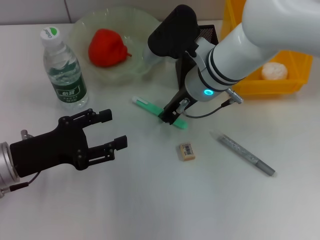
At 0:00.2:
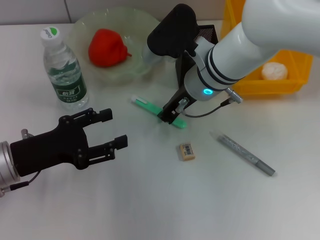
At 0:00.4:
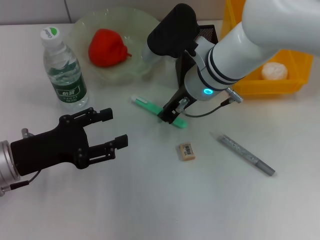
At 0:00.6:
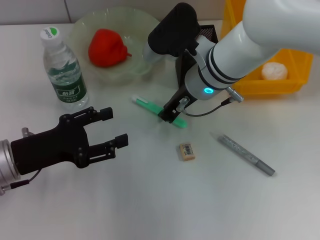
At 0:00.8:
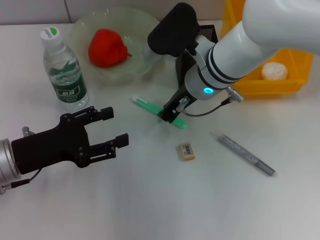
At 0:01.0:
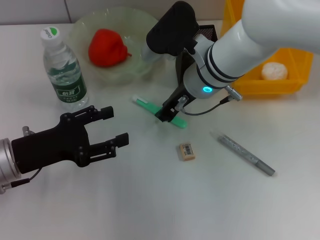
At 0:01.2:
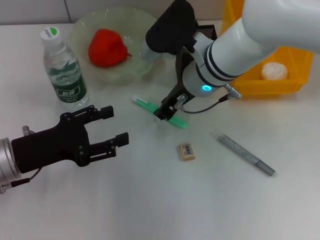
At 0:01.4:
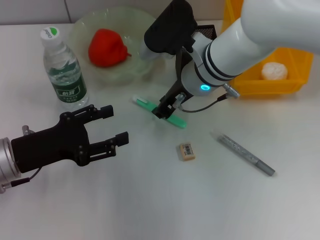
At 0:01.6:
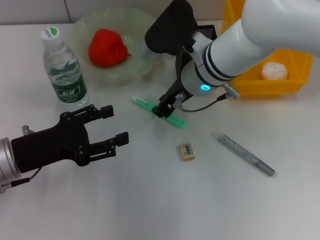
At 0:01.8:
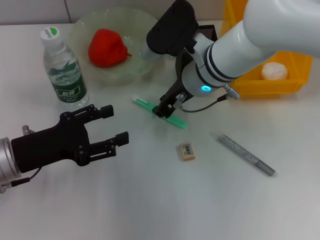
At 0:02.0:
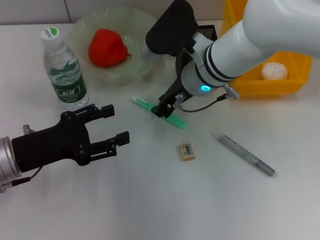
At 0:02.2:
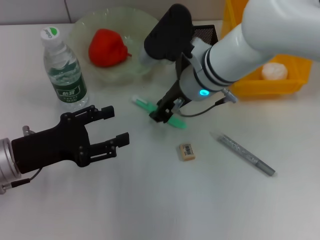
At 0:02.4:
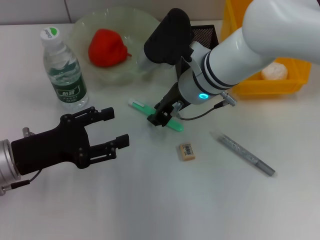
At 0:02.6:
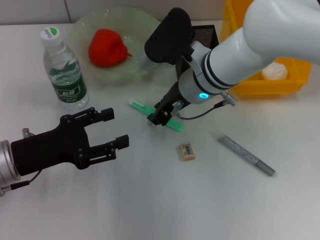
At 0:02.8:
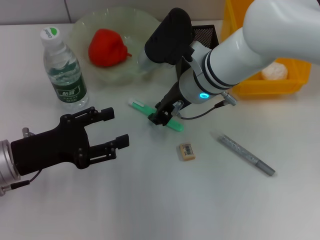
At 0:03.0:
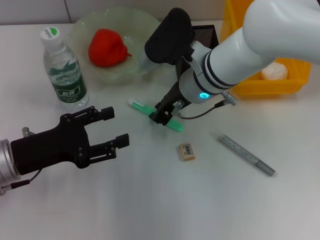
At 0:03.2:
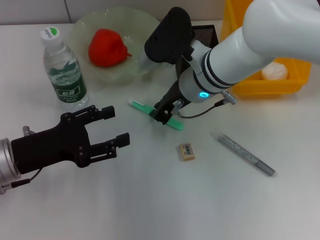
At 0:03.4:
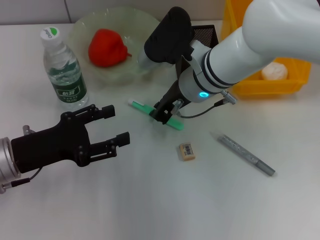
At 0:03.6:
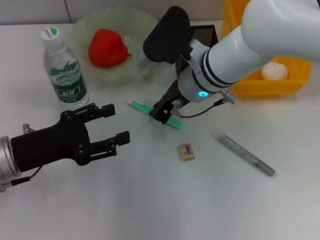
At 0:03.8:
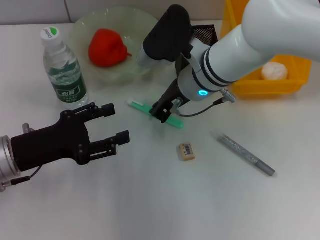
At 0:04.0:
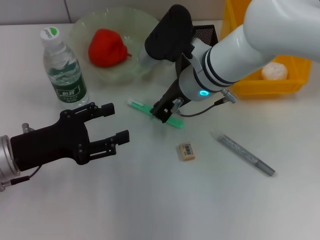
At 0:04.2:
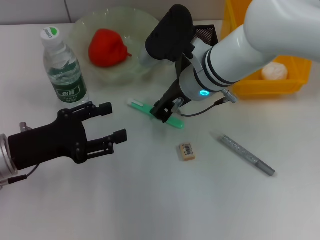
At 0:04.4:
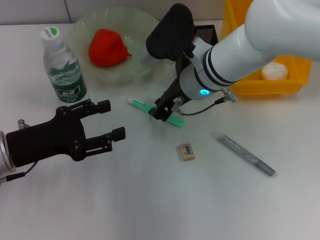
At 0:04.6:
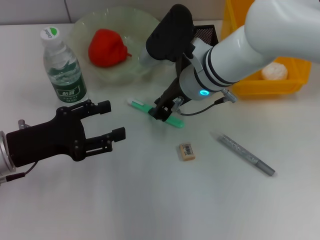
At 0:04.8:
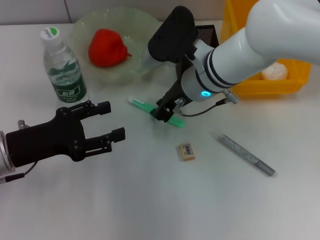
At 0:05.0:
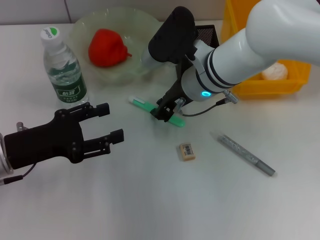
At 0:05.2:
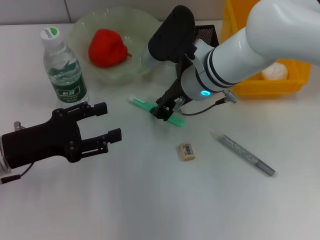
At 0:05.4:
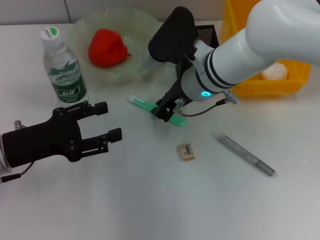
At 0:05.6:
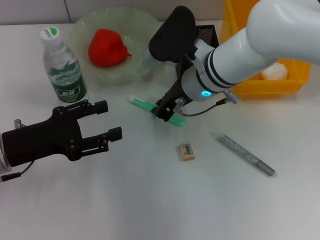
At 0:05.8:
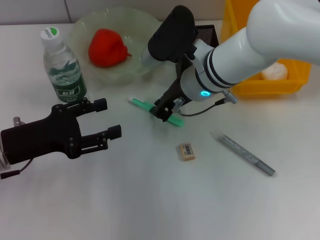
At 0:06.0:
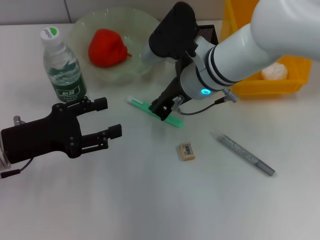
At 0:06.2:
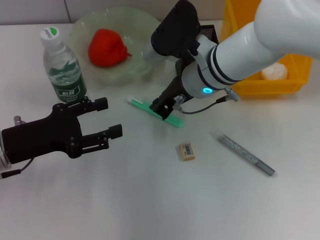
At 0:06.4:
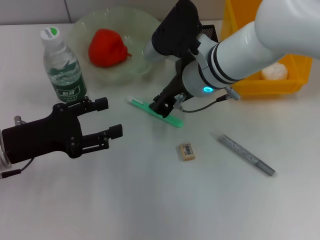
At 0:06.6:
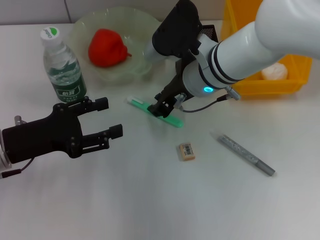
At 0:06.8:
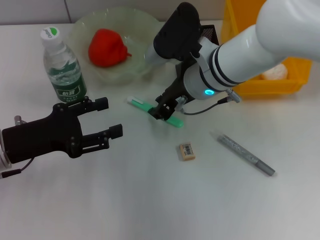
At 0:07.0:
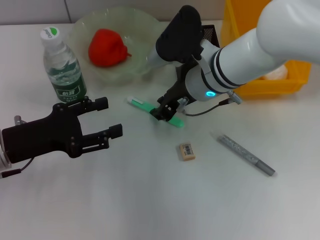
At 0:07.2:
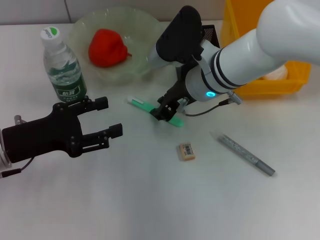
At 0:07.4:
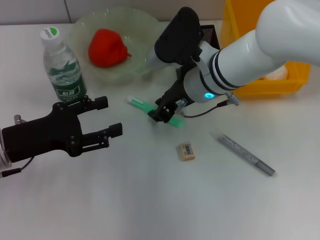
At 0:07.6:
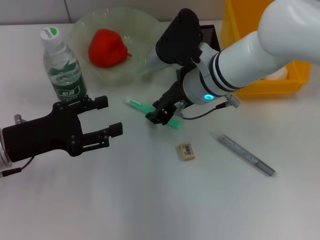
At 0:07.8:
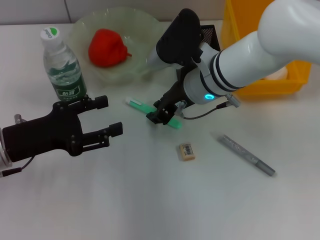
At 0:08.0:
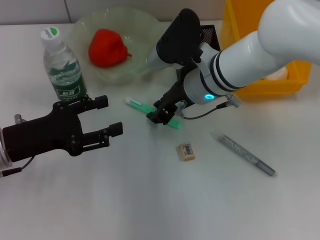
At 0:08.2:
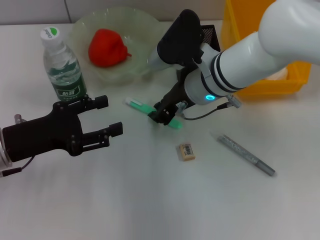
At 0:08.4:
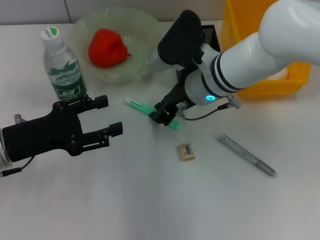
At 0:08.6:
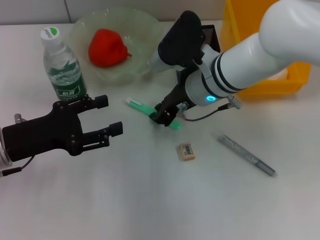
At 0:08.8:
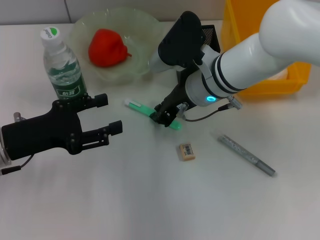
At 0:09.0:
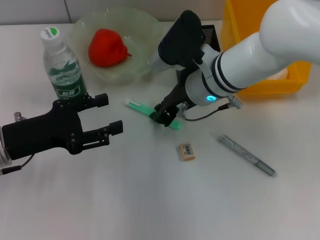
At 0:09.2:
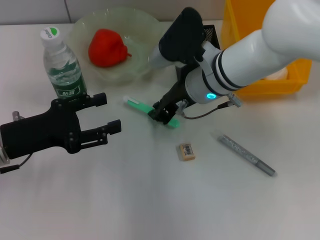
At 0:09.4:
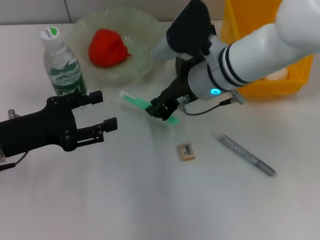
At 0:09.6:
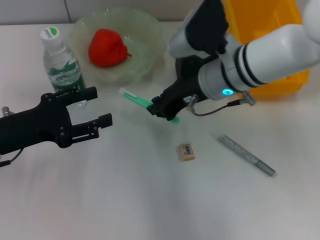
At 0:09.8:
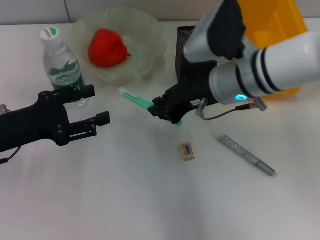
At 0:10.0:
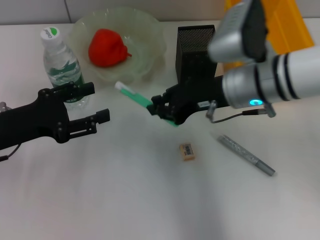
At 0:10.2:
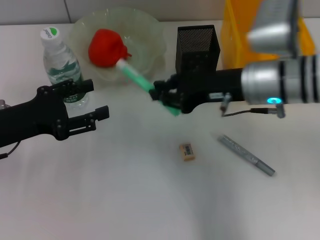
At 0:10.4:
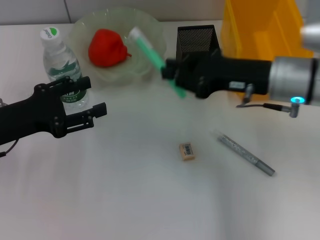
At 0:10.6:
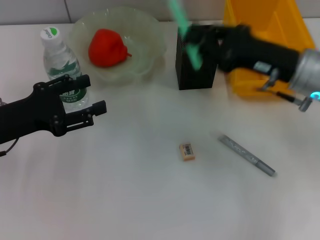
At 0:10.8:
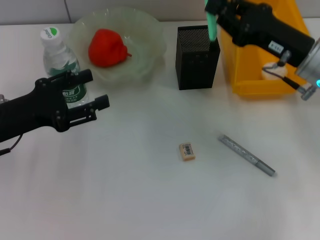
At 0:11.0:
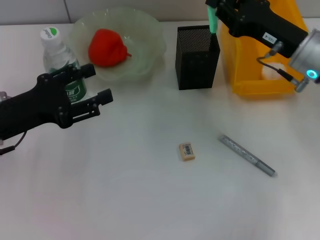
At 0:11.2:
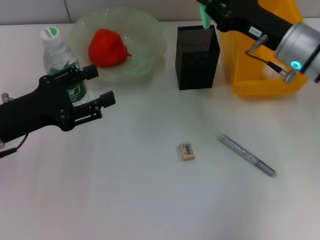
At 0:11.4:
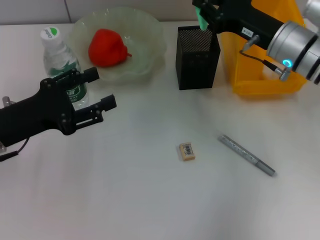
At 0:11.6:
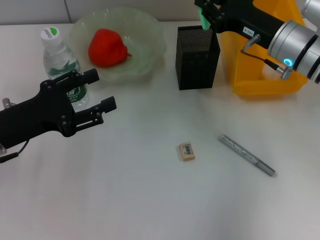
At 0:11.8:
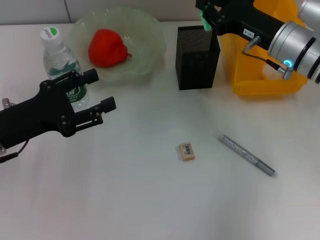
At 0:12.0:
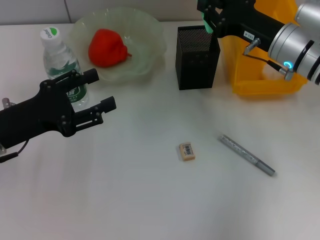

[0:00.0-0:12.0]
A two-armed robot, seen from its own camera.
Step, 0:00.0 to 0:08.6: Grab the blue utility knife with the right hand.
0:00.0 to 0:01.6: Both grippers stay about where they are.
0:01.6 to 0:04.4: Both grippers stay put.
0:04.4 to 0:07.6: Neither gripper changes place.
0:07.6 to 0:09.0: Both grippers stay about where they are.
0:09.0 to 0:10.4: The right gripper is displaced to the right and backward by some 10 cm.
0:10.4 to 0:12.0: The right gripper travels forward by some 5 cm.

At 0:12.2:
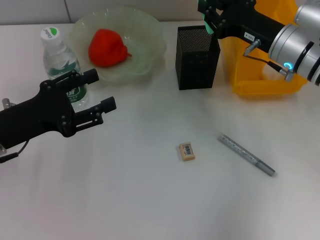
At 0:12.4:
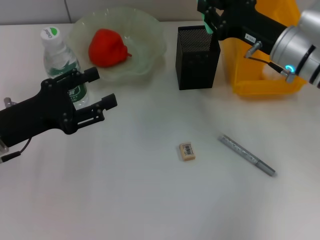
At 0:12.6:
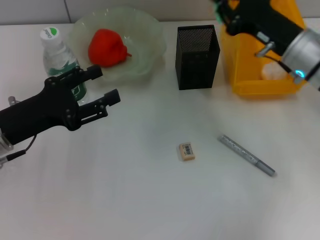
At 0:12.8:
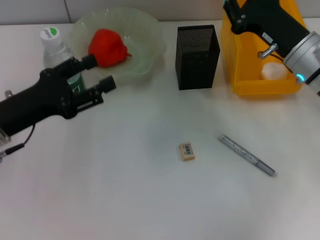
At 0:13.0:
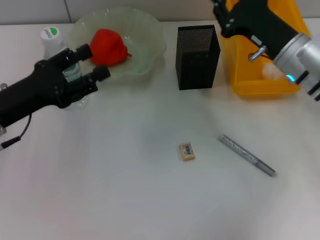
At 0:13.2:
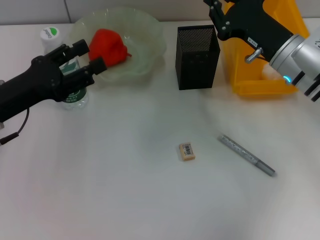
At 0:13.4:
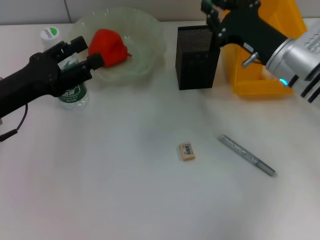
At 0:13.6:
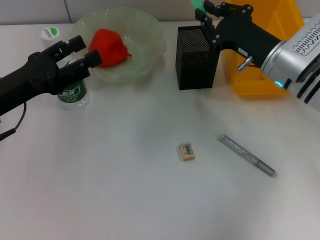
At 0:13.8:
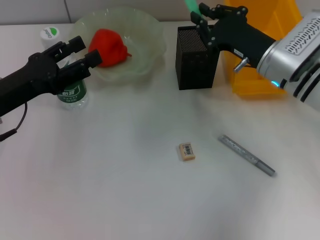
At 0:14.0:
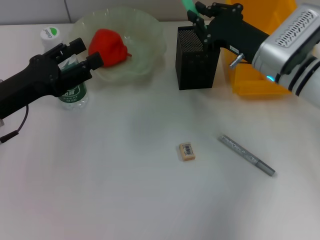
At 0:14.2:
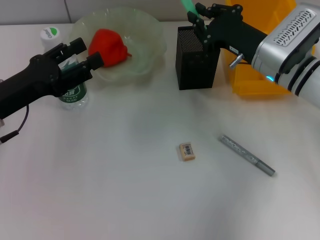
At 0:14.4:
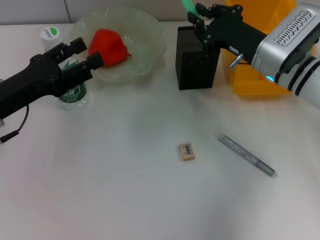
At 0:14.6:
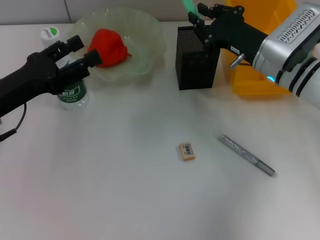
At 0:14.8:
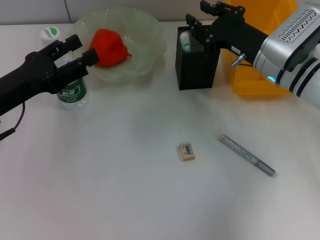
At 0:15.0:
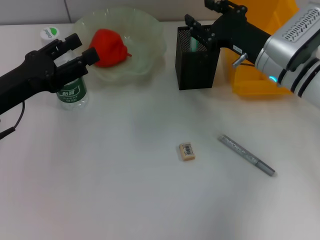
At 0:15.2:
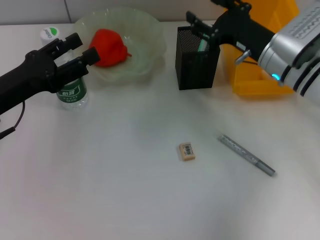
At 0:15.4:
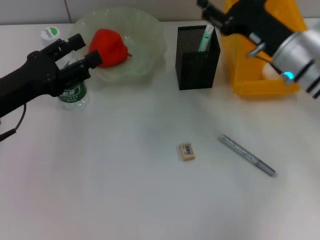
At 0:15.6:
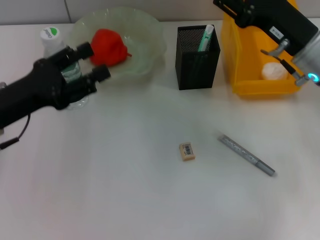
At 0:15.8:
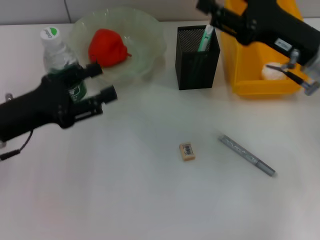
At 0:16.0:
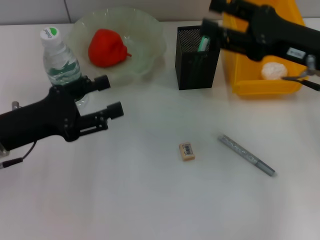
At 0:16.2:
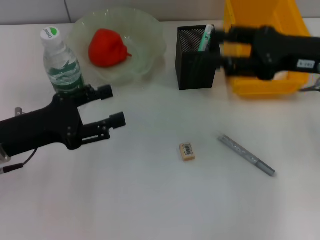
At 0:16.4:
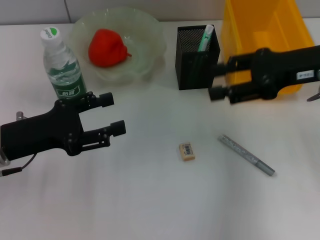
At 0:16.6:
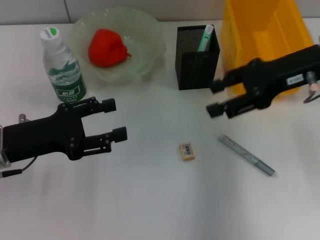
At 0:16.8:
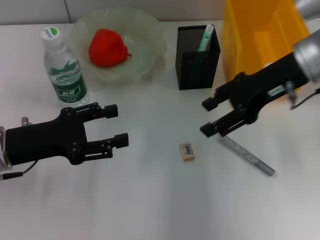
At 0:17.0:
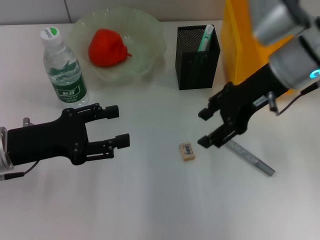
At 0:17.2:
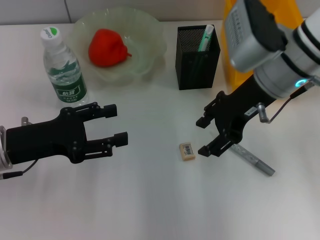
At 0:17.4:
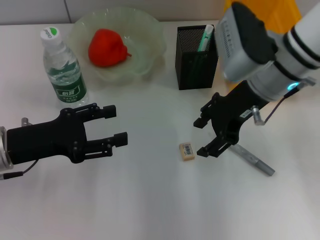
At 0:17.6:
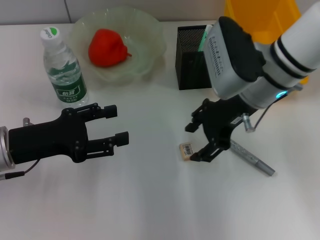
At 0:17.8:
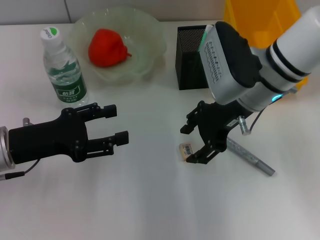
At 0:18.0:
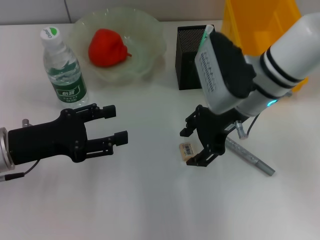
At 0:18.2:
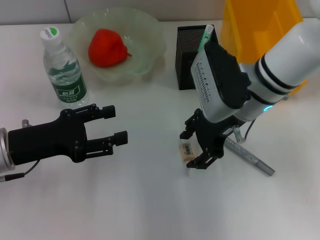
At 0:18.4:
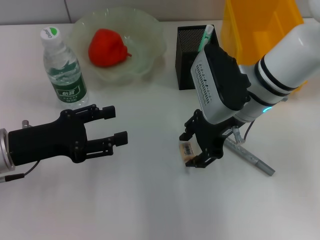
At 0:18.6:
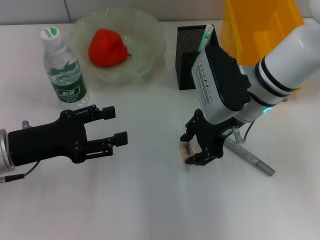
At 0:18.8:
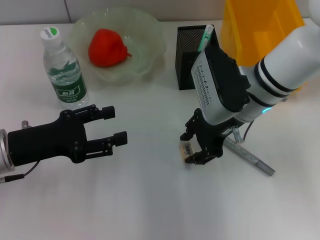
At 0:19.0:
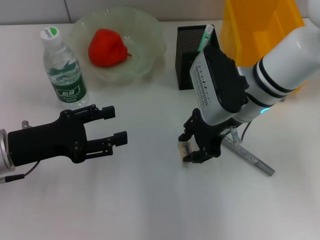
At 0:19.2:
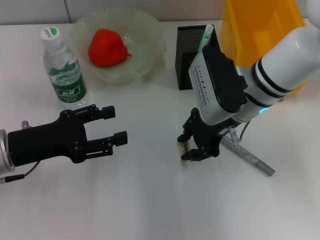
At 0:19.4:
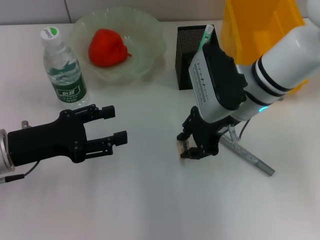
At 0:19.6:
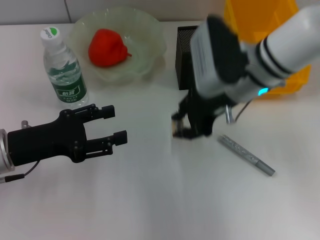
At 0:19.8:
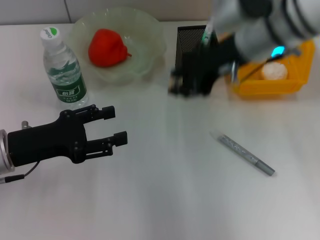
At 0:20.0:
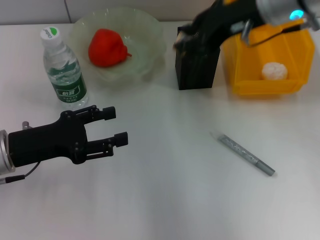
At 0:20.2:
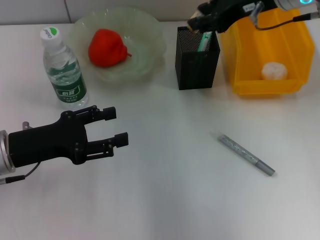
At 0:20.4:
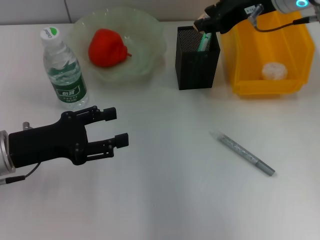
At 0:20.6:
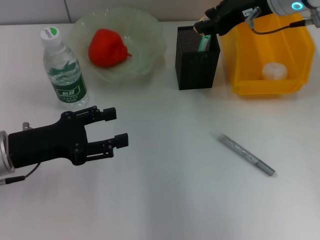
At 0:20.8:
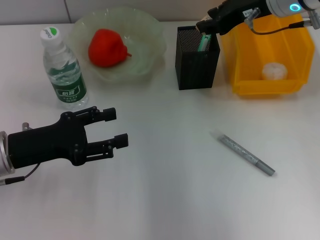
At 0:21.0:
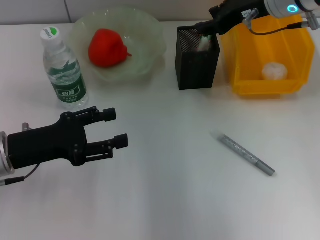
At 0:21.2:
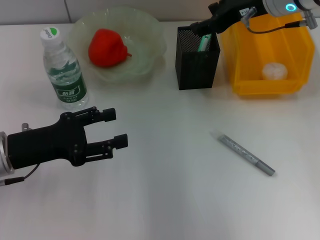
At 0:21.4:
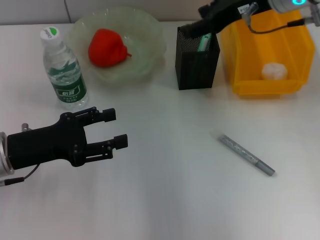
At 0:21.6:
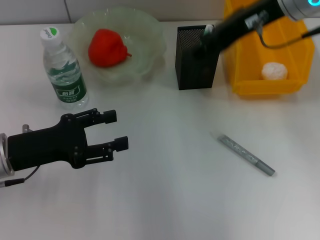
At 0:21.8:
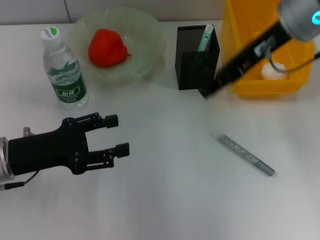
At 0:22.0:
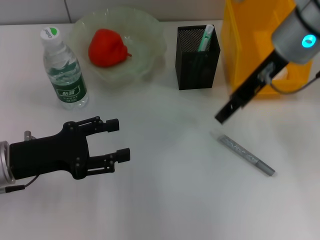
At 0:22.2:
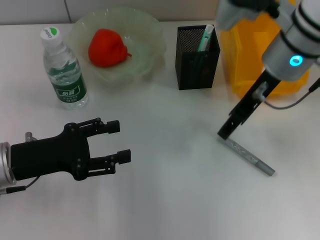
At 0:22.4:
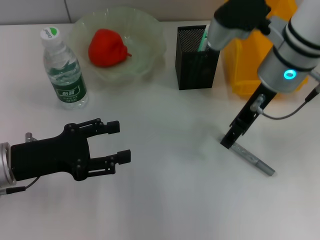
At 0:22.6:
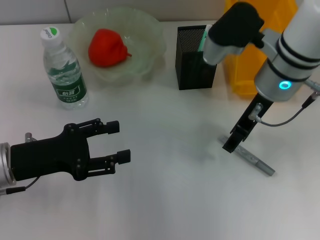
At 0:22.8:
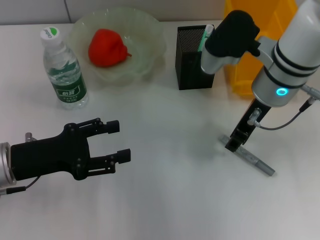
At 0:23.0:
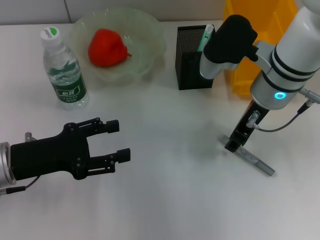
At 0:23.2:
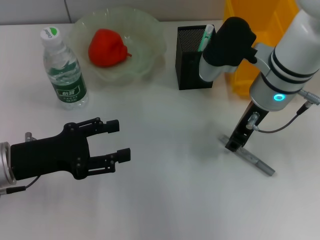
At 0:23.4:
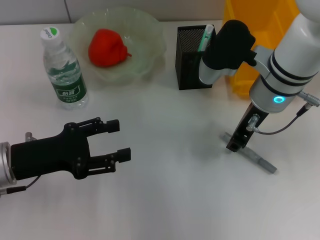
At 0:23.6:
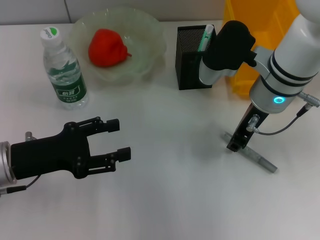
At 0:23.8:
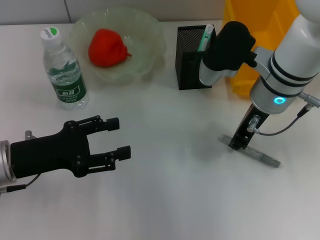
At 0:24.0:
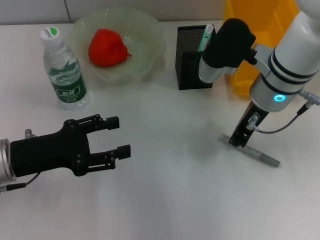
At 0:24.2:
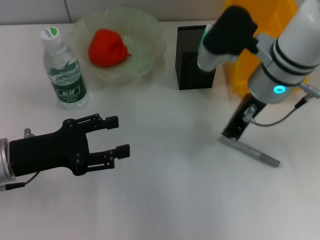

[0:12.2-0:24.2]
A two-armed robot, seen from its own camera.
Step, 0:12.2 to 0:15.4: Place the blue utility knife into the pen holder with the right hand.
Step, 0:15.6 to 0:19.0: Grab the eraser with the right hand.
Step, 0:19.4 to 0:21.0: Put the eraser into the pen holder with the right hand.
0:12.2 to 0:13.8: The grippers stay close to where they were, moving slightly.
0:13.8 to 0:15.2: The right gripper opens its fingers.
0:15.2 to 0:16.6: The right gripper goes about 10 cm upward.
0:16.6 to 0:18.2: The right gripper is displaced to the left and downward by some 15 cm.
0:18.2 to 0:19.8: The right gripper goes roughly 10 cm upward, and closes.
0:19.8 to 0:21.2: The right gripper shifts by roughly 5 cm.
0:21.2 to 0:22.6: The right gripper moves backward and downward, approximately 10 cm.
0:22.6 to 0:24.2: The right gripper closes.
